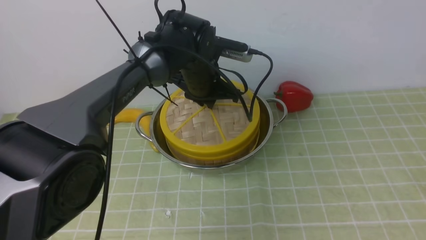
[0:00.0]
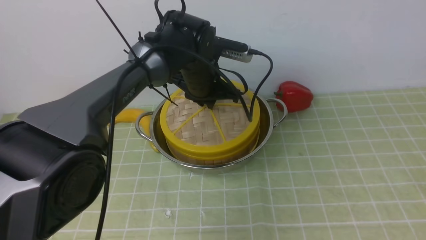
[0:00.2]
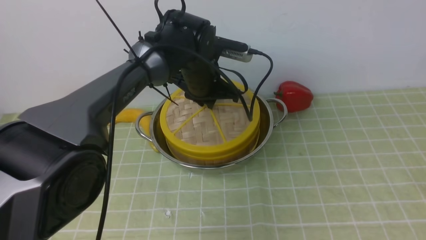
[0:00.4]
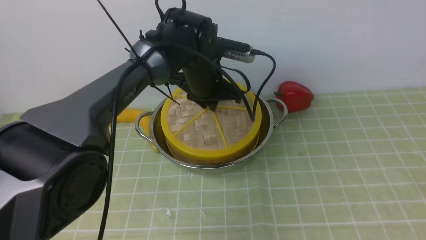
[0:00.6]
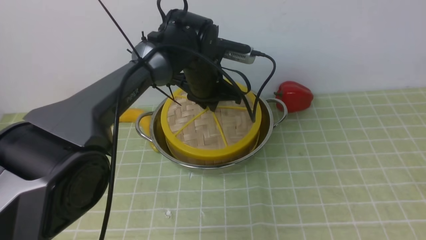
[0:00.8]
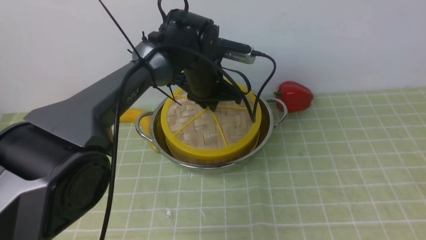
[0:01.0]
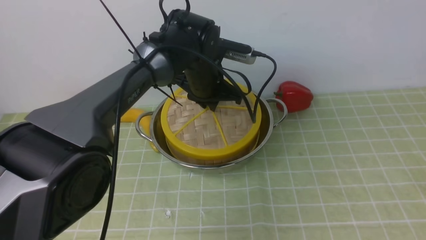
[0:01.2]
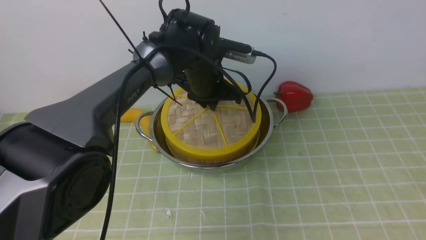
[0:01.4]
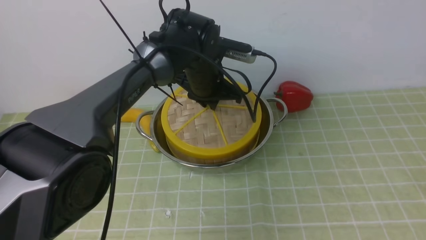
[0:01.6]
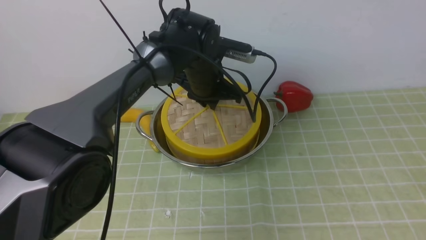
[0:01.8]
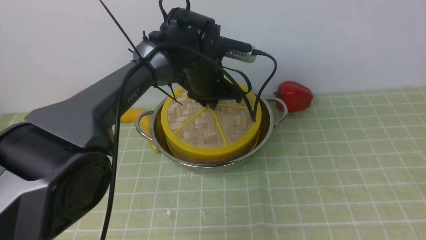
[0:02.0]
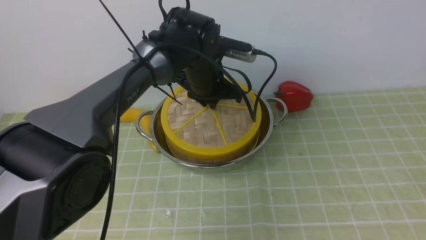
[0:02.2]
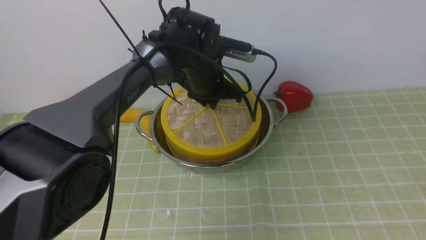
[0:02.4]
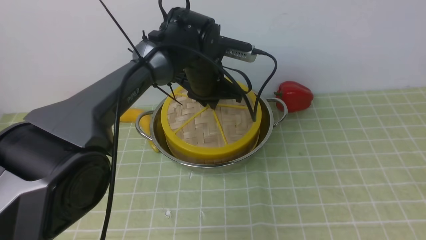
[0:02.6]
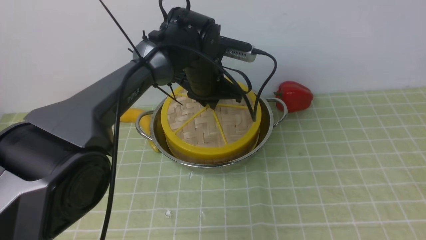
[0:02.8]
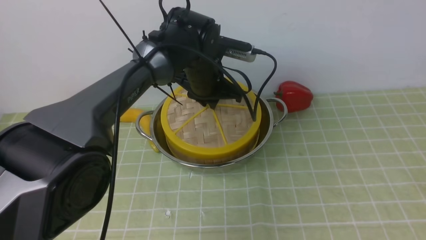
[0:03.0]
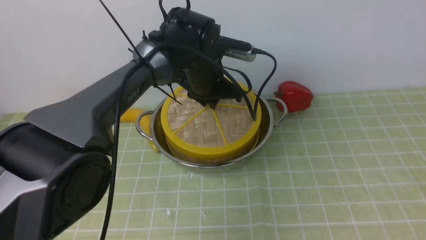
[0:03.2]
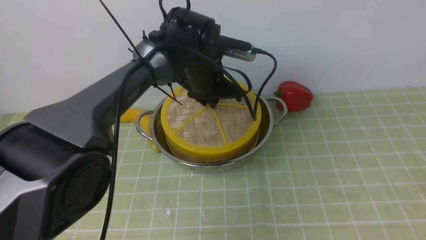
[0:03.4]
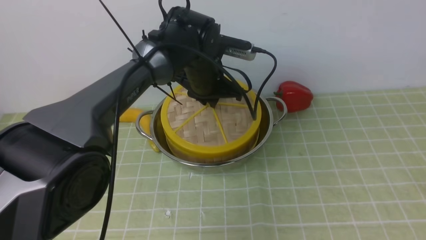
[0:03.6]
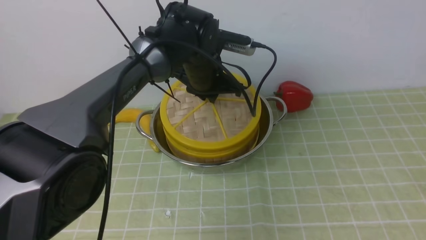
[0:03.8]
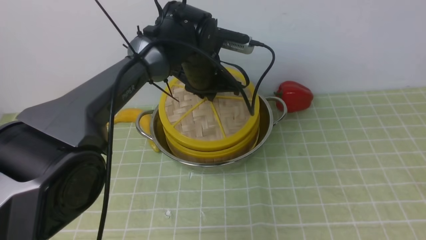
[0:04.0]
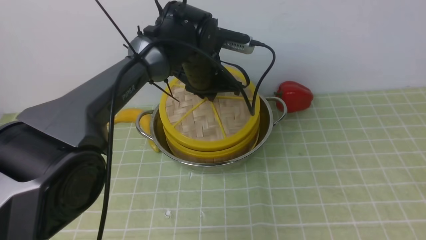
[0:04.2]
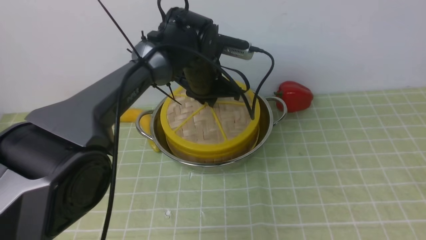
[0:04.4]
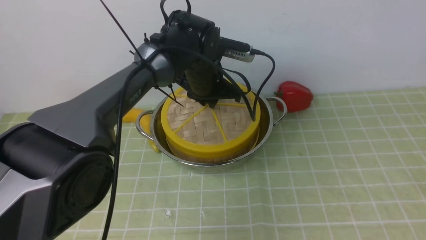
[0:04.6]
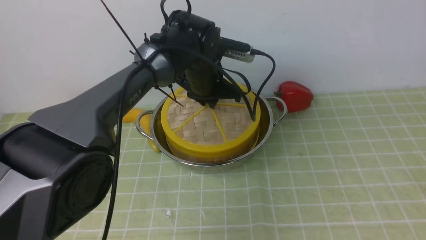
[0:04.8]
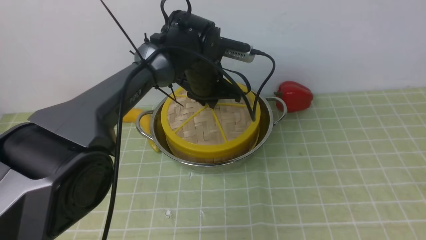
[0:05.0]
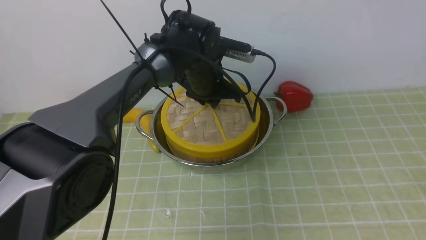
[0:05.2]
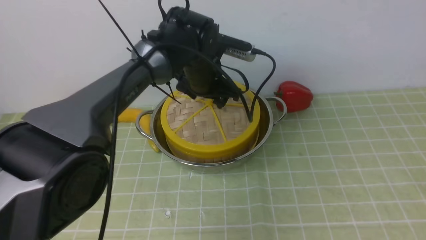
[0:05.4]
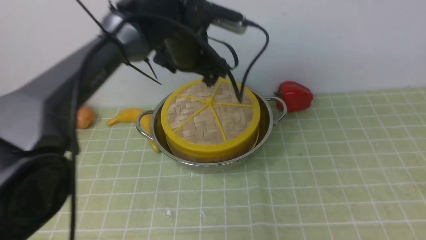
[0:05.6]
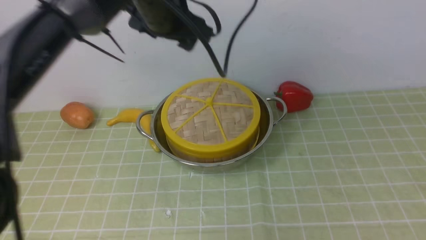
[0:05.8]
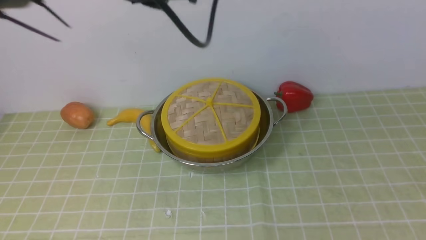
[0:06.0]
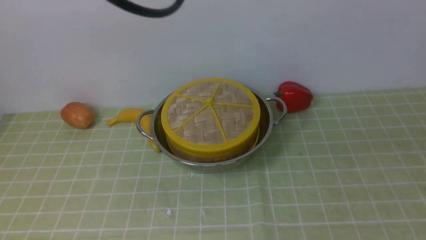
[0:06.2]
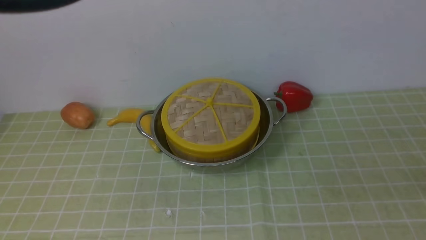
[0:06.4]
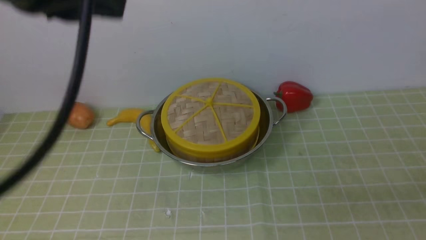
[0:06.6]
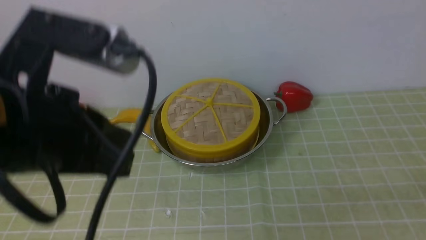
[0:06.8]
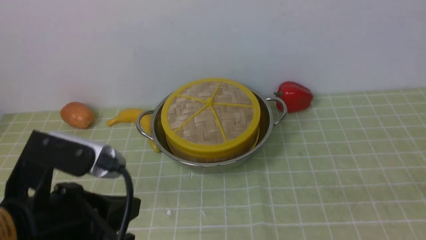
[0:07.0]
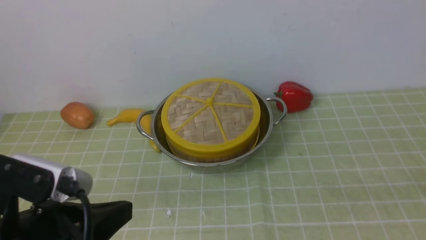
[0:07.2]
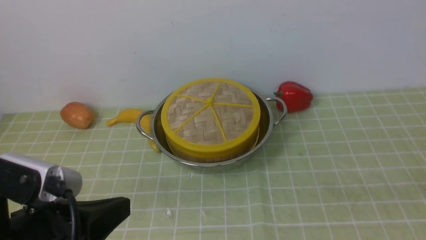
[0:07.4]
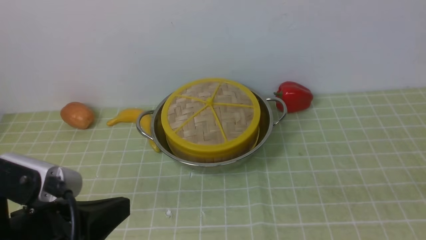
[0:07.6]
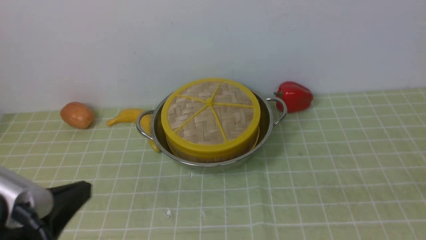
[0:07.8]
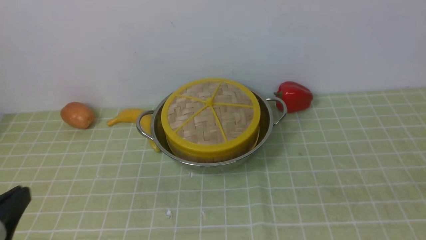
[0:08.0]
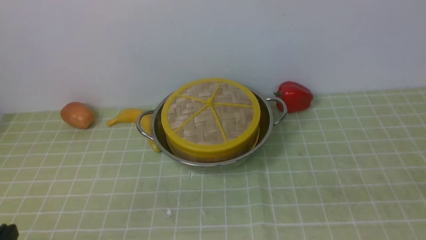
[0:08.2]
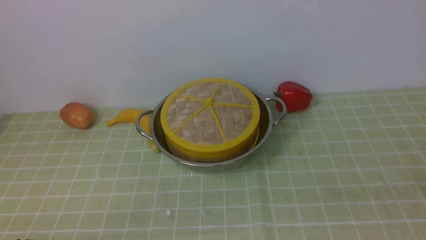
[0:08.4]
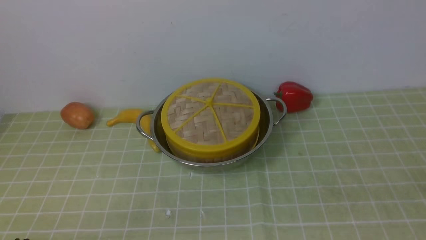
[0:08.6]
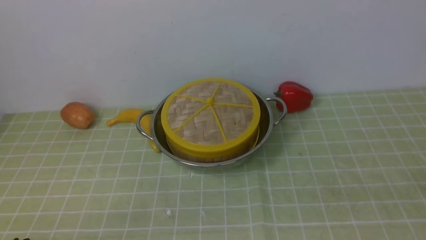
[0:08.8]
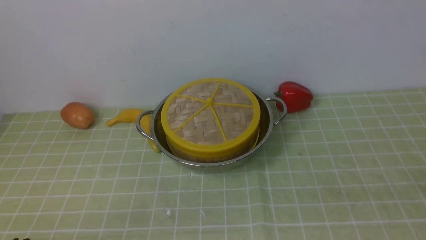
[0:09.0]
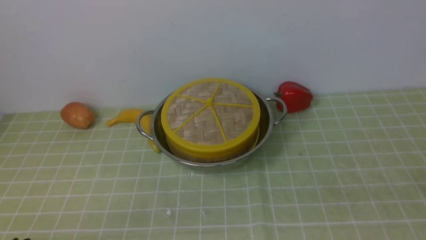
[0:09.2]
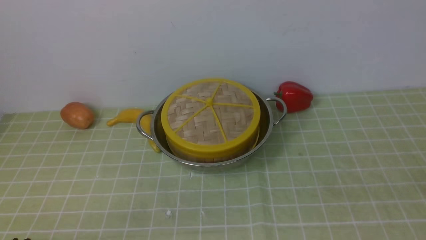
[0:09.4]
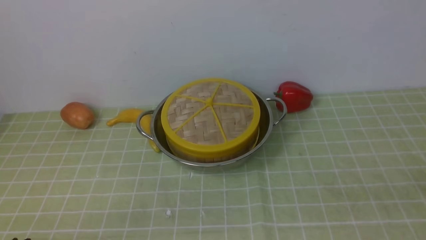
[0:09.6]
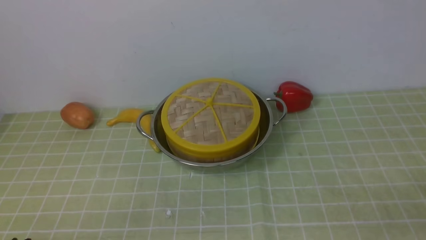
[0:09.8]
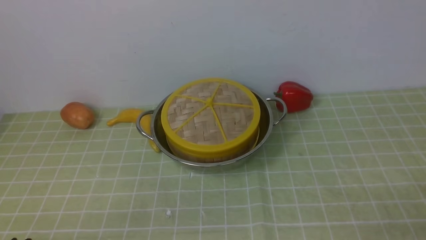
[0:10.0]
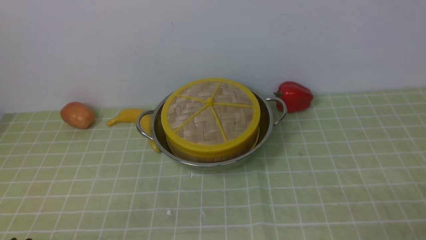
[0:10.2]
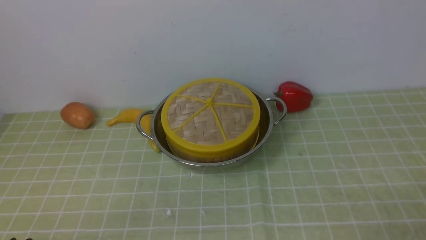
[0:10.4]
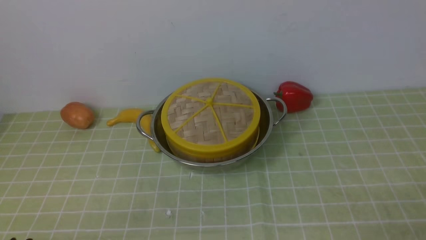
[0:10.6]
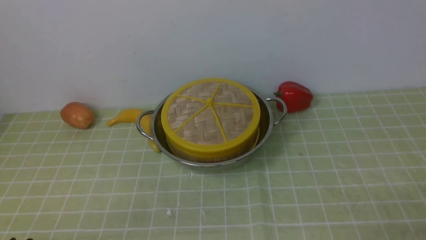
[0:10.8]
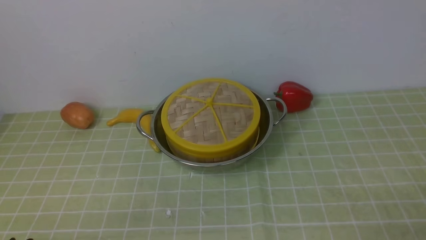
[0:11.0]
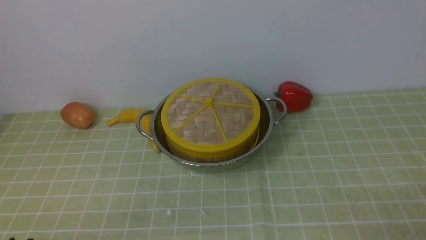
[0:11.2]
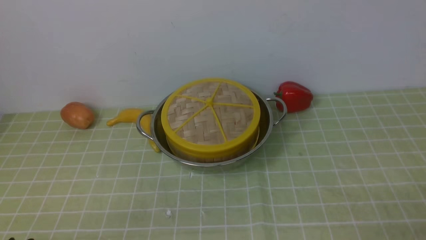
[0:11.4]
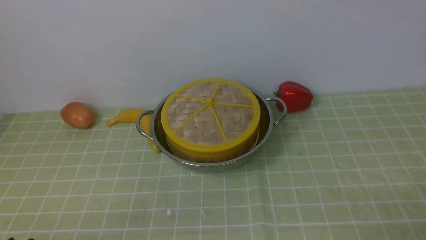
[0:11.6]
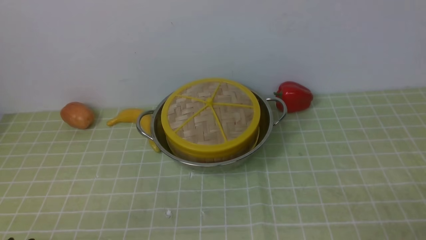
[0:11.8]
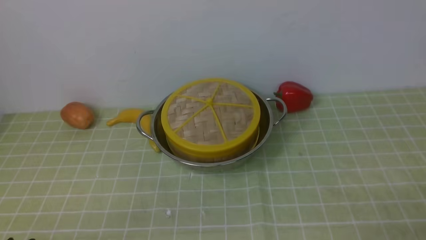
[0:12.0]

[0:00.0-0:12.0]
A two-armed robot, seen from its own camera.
Task of the whole recording: place the steamer in the pot on the green tablecloth, and put the lid on the steamer.
Step, 0:00.0 to 0:05.6: use the left arm to place the steamer lid on the steamer.
0:00.0 to 0:03.0: Both grippers stay about where they are.
0:03.0 to 0:04.4: Both grippers stay about where they are.
0:04.4 to 0:06.0: The left gripper moves upward and backward, approximately 25 cm, and opens and closes again.
0:06.0 to 0:07.6: The right gripper is displaced downward and backward by approximately 10 cm, and closes. The left gripper heads backward and downward, covering some 30 cm, and closes its fingers.
0:07.6 to 0:09.0: The left gripper travels downward and to the left by about 15 cm.
0:10.4 to 0:12.0: Neither gripper changes place.
